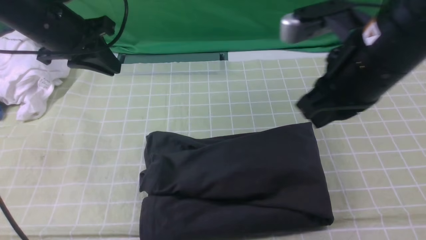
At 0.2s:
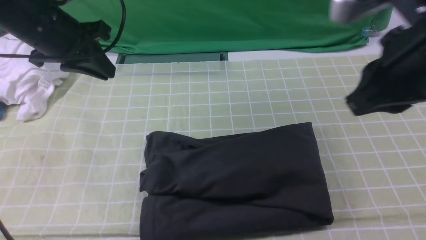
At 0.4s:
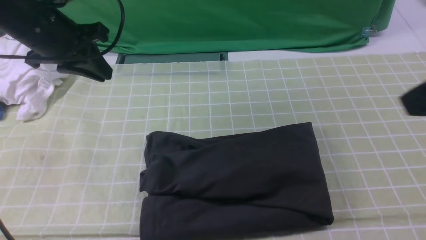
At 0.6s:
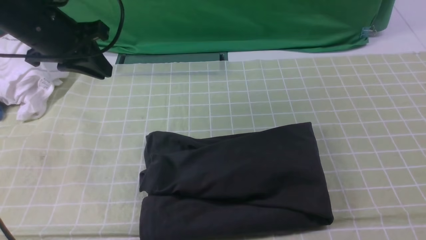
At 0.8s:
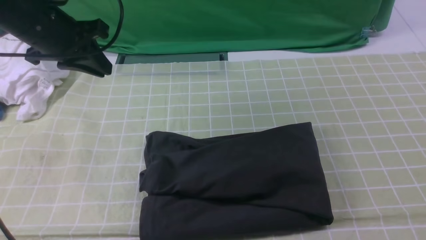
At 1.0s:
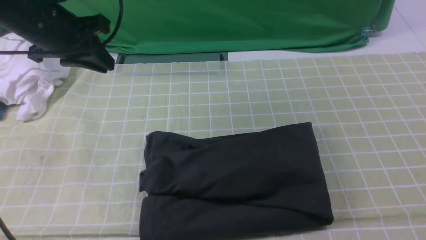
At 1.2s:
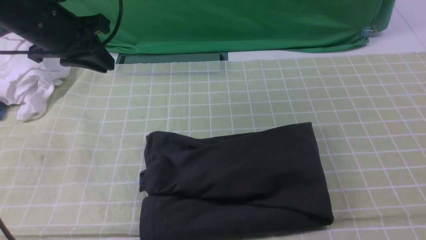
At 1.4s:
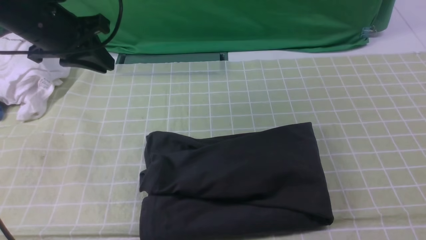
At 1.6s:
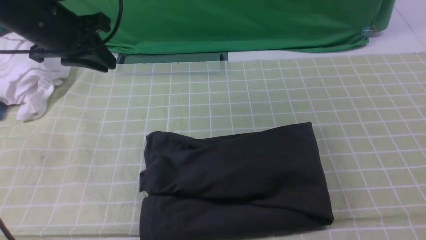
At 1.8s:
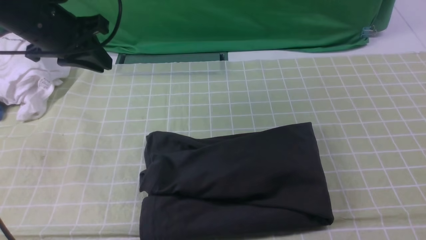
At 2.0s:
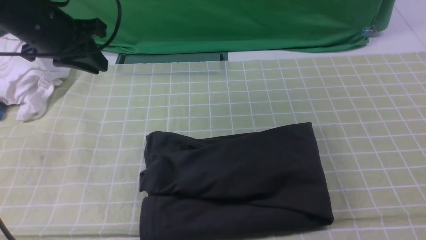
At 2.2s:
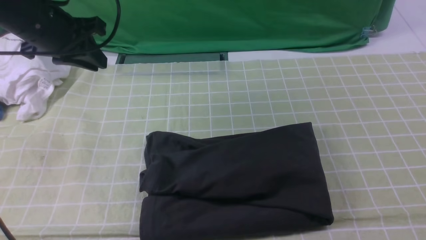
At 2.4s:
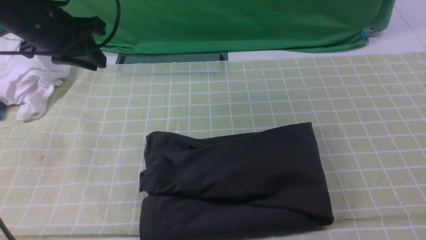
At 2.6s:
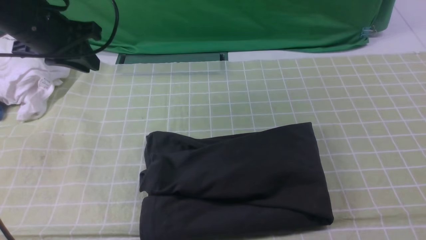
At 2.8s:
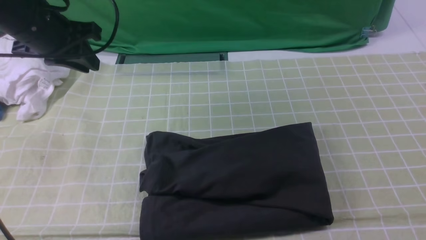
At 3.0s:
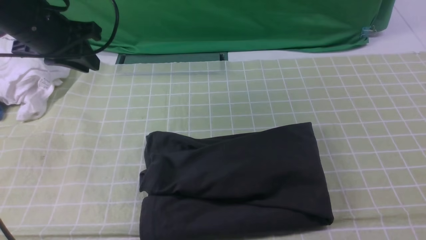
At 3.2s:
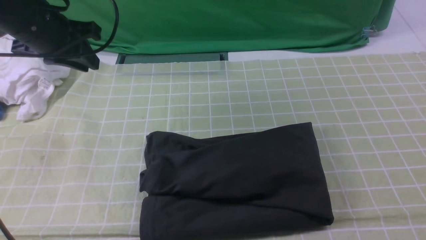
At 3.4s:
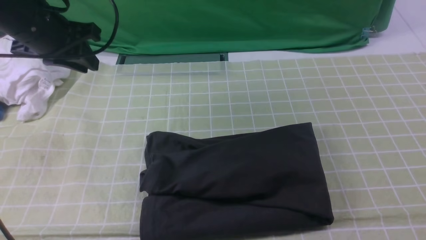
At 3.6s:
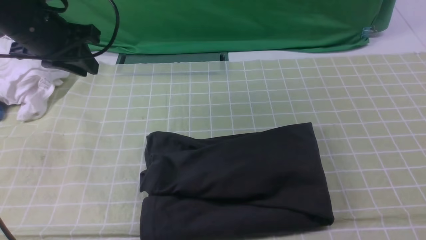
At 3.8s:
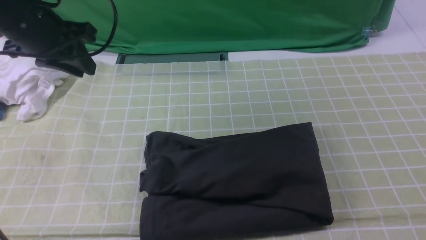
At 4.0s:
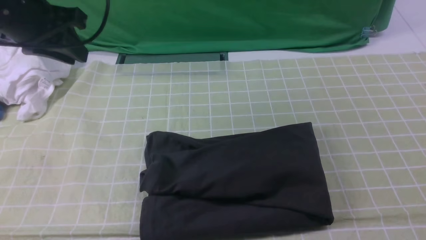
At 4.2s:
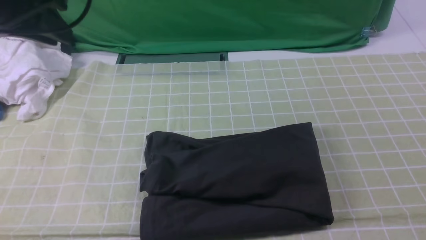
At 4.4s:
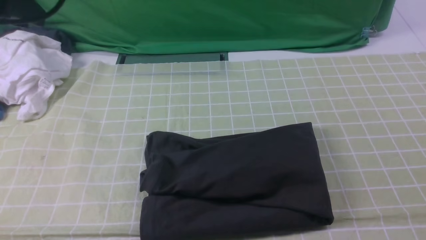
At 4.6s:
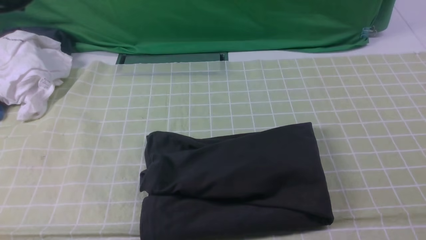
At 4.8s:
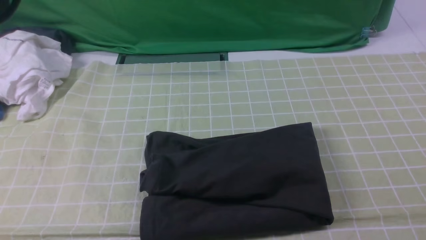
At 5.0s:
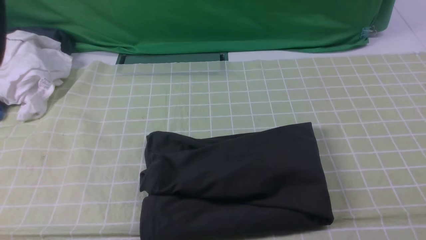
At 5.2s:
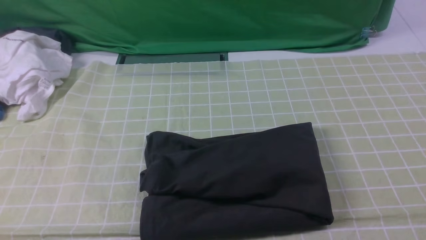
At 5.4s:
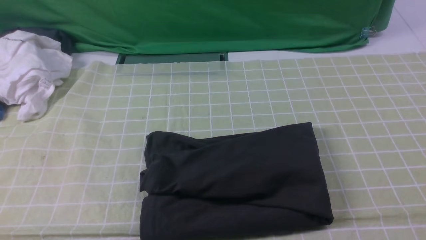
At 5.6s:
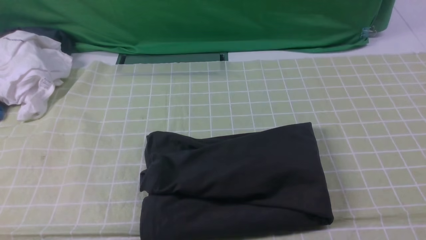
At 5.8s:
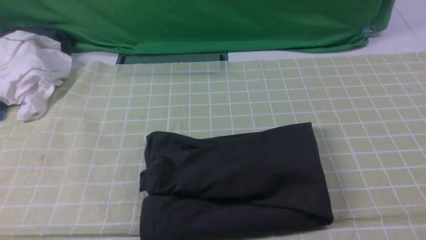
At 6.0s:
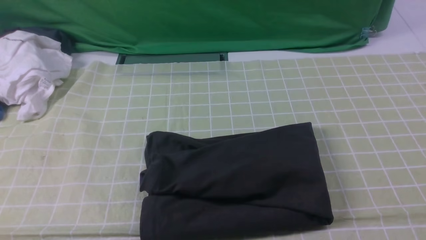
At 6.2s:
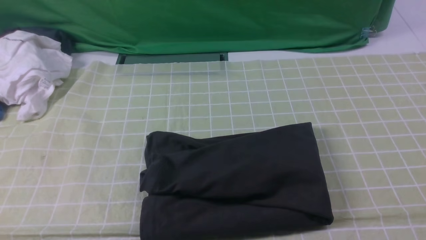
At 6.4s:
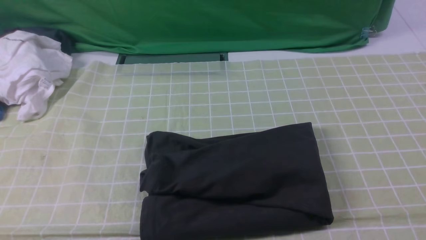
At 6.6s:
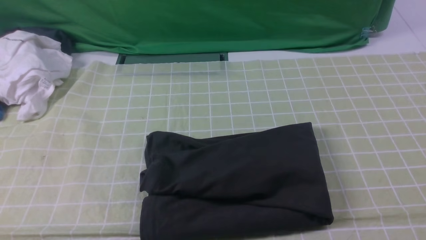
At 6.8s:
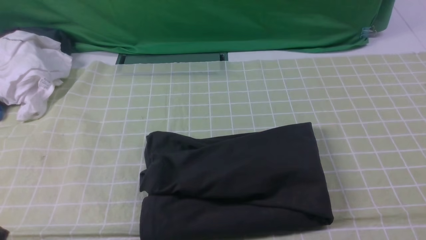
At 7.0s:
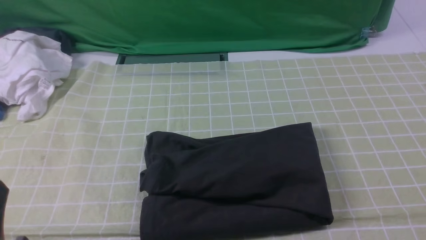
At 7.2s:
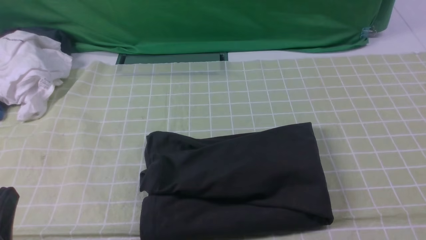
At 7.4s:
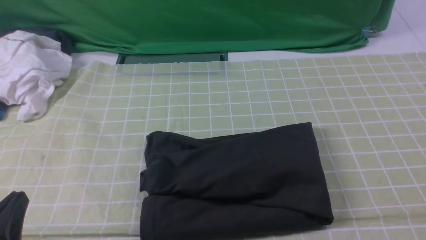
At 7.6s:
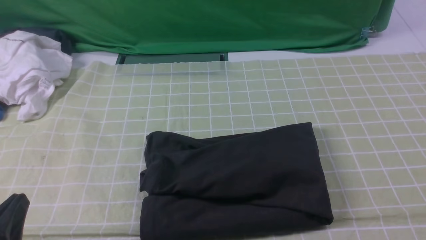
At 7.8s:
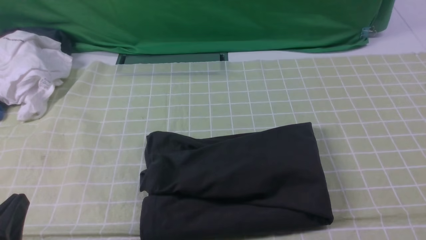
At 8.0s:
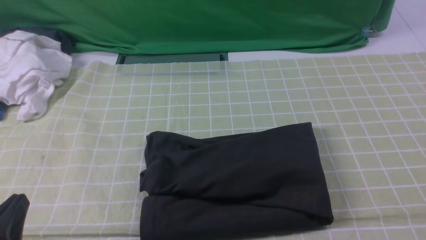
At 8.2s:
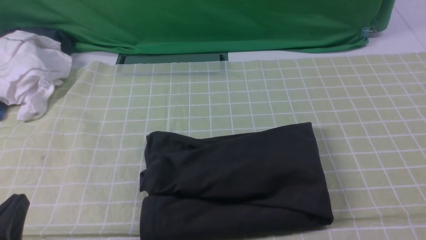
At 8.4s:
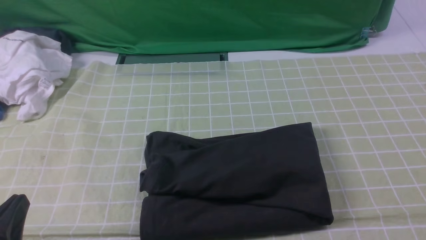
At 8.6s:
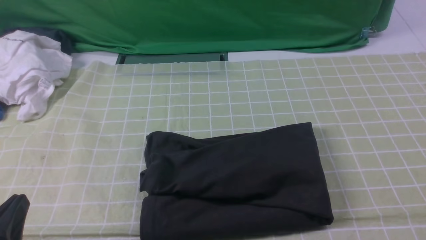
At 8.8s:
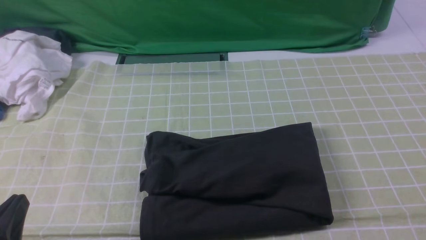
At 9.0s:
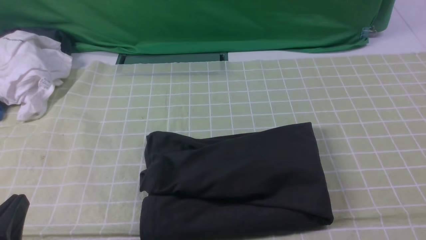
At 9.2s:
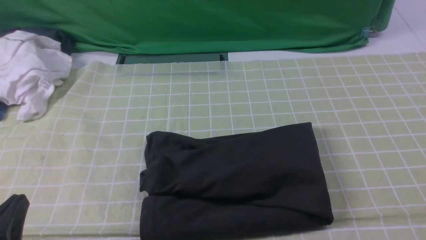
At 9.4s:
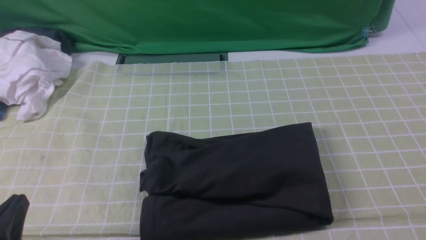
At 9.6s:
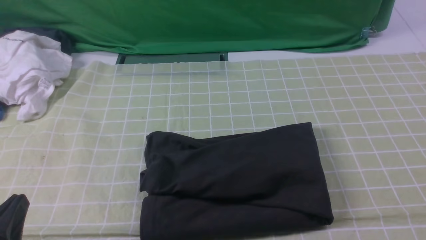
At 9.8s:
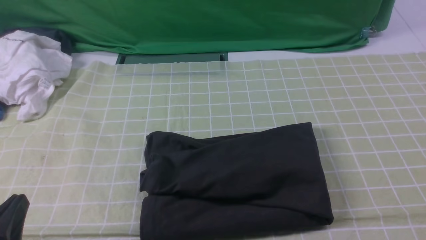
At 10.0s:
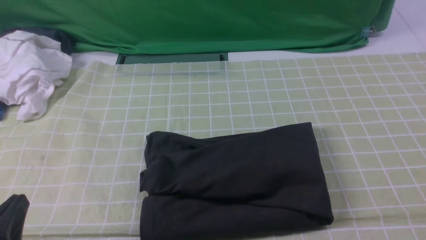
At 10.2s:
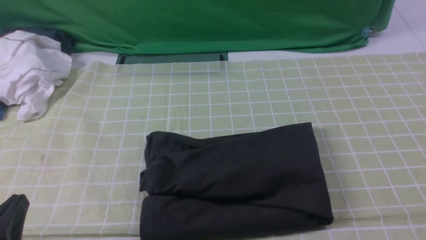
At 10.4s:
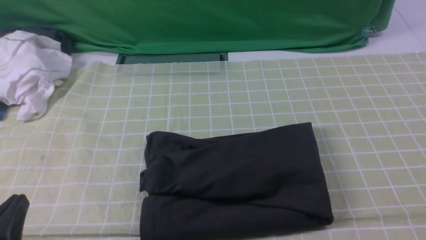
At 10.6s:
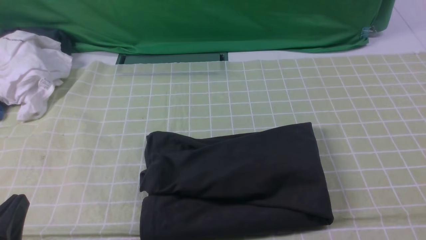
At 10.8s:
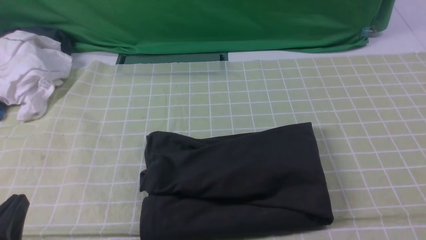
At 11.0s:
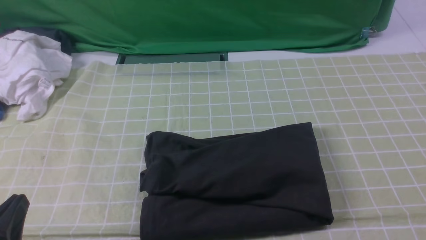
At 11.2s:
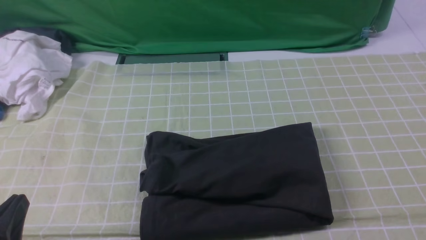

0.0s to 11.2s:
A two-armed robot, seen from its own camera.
0.0s to 1.6s: The right gripper travels backward and to the right by about 25 cm.
3.2s to 4.8s: The left gripper shifts approximately 25 cm backward and upward.
6.4s to 8.0s: The left gripper travels downward by approximately 15 cm.
8.0s to 11.2s: The two grippers keep their place.

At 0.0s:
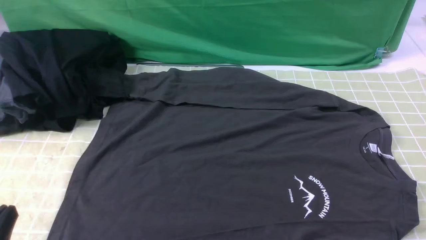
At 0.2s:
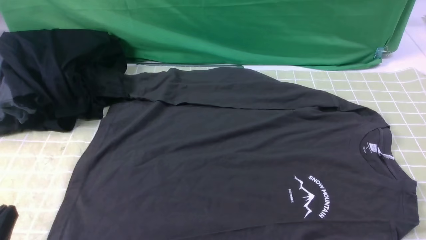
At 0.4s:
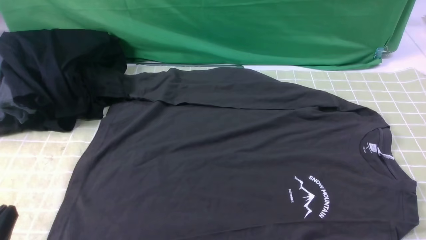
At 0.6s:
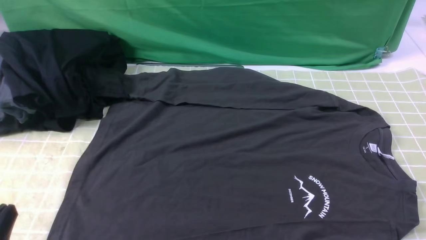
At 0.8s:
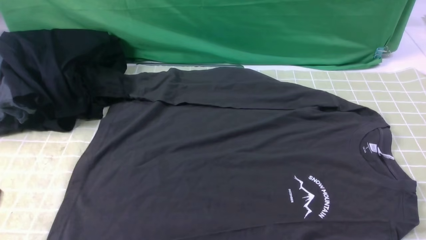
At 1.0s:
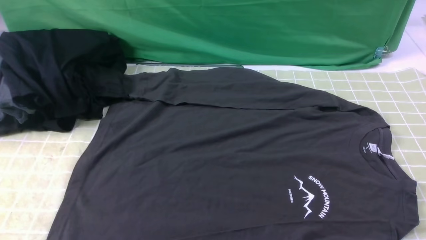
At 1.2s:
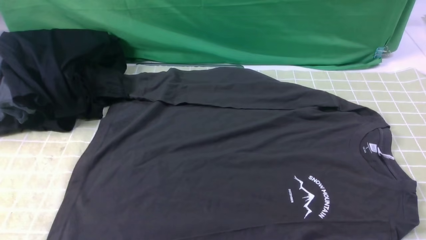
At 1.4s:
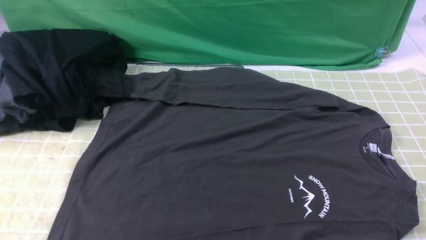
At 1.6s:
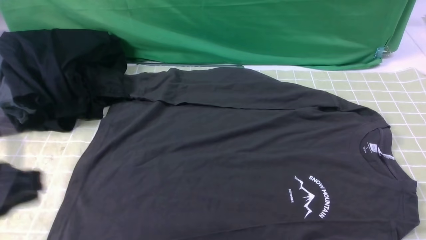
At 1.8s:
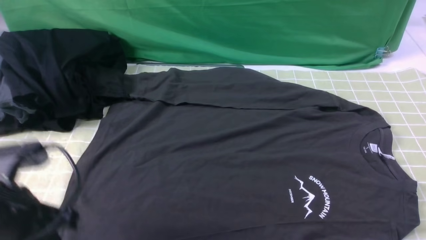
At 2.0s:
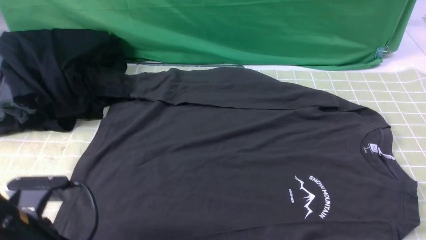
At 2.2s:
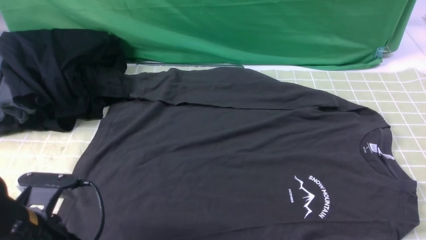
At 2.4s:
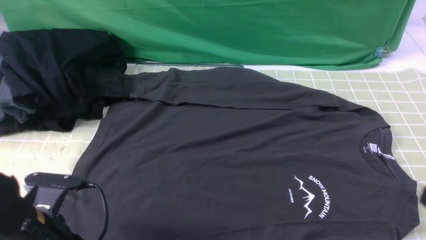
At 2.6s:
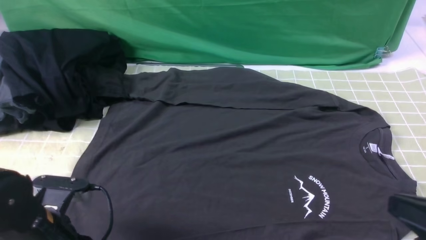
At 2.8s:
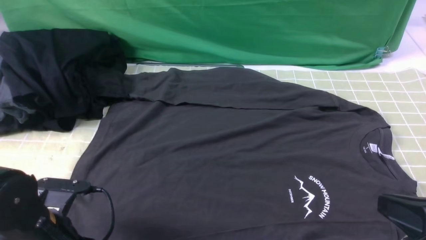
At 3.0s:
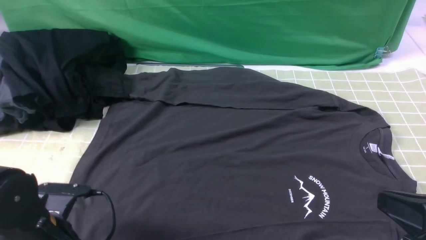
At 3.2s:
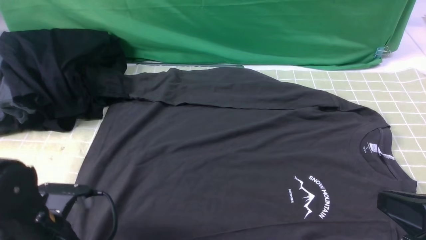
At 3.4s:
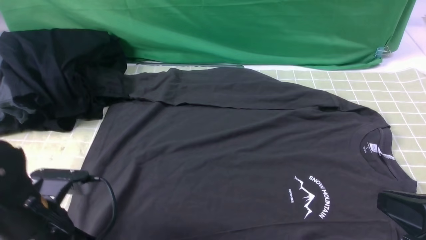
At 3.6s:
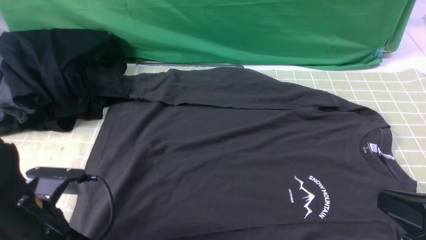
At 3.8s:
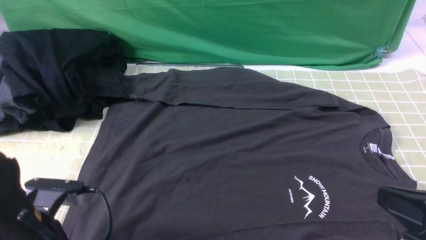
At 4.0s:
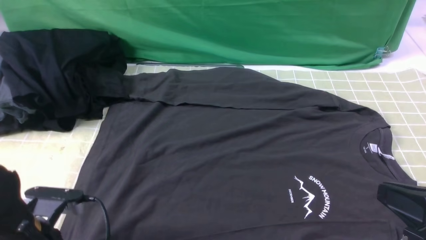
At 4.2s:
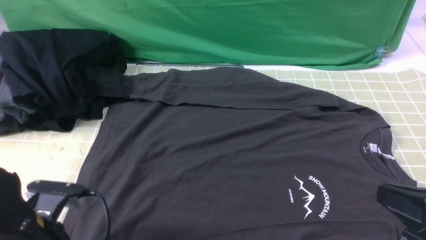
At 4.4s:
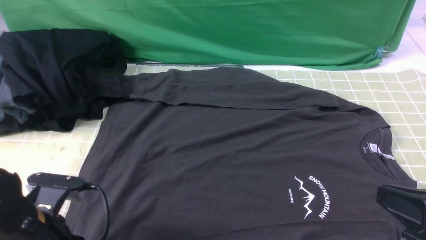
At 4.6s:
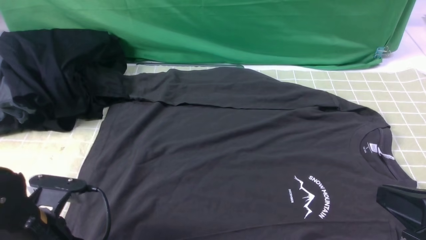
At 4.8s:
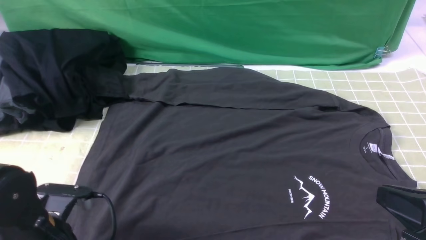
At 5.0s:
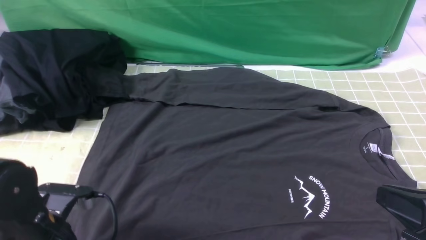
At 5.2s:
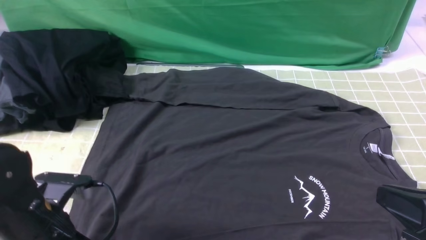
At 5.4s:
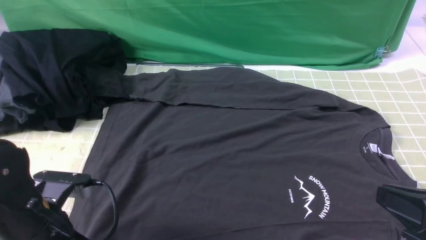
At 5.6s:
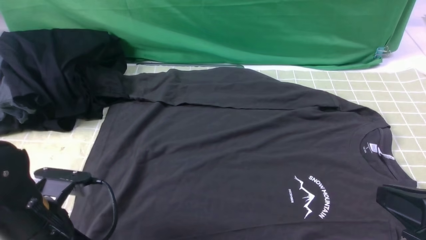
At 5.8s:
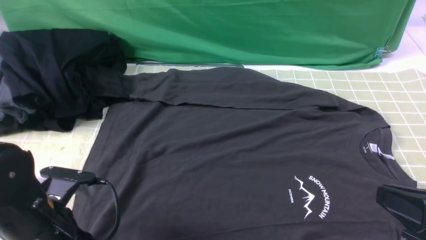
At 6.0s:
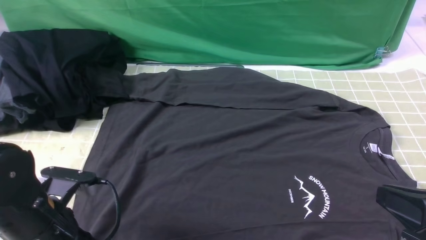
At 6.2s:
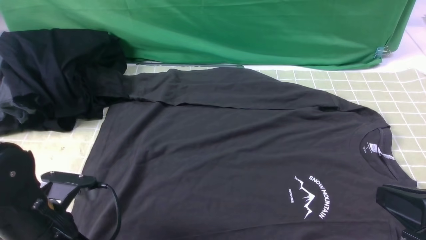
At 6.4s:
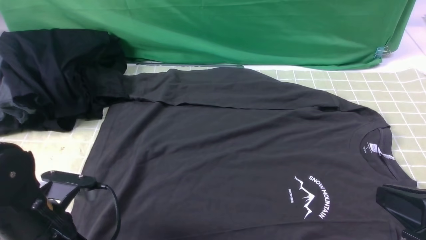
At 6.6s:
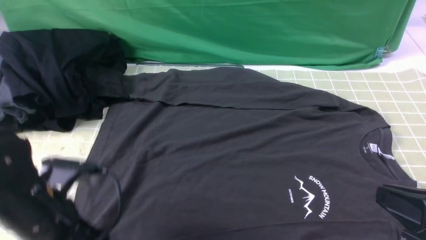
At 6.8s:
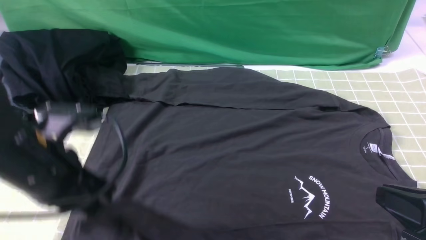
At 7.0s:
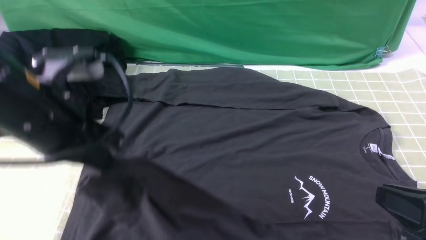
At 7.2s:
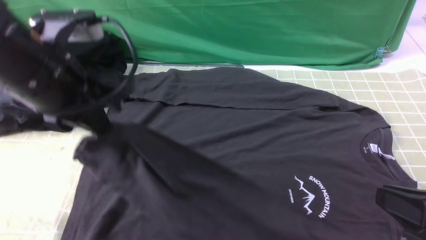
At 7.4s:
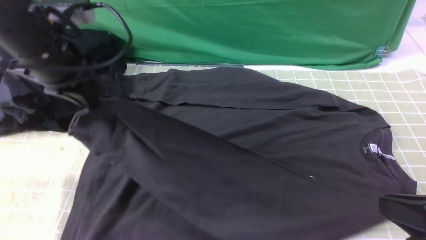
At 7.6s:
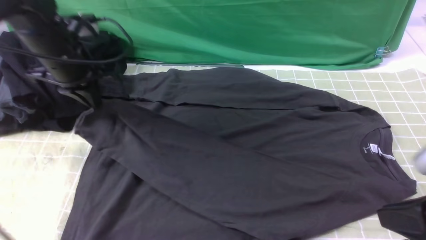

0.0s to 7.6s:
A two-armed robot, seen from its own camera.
Step, 0.0s to 6.0s: use the left arm to clamp the cuff closest to it.
0.0s to 1.6s: The left gripper travels upward and forward by approximately 15 cm.
1.6s to 3.0s: The right gripper travels to the left and upward by roughly 10 cm, and closes its fingers; the left gripper is displaced downward by some 15 cm, and opens up.
3.0s to 6.0s: The grippers stay close to where they were, moving slightly.
6.0s to 7.6s: The left gripper heads forward and upward, covering about 25 cm, and closes.
